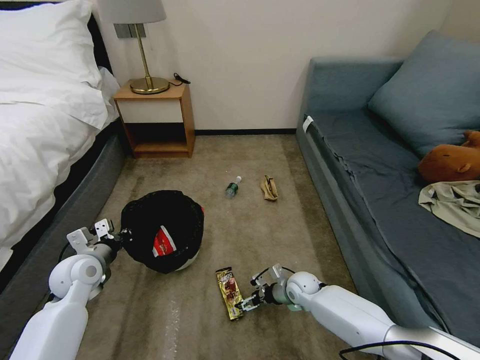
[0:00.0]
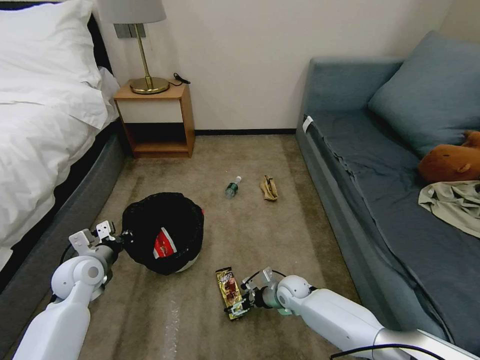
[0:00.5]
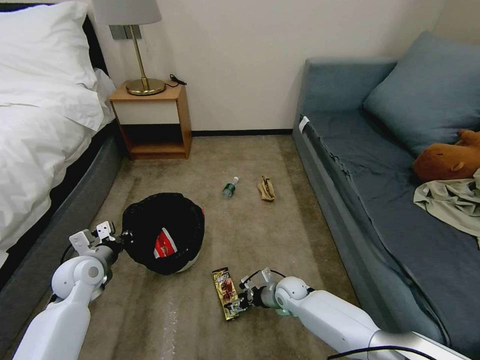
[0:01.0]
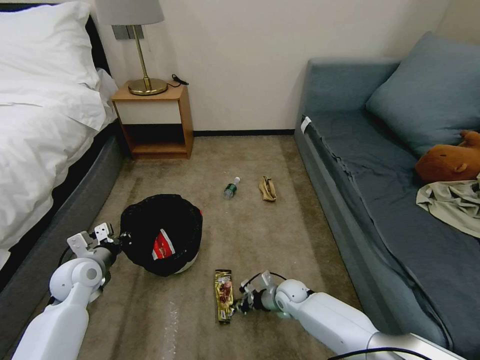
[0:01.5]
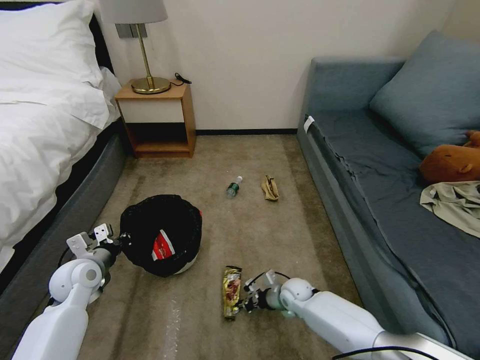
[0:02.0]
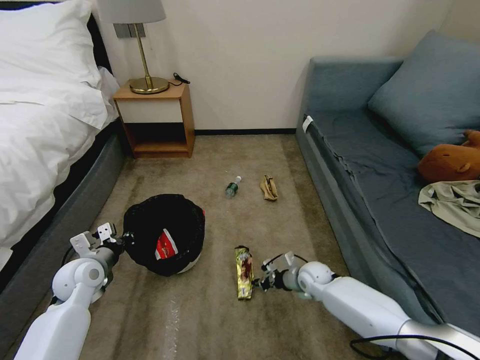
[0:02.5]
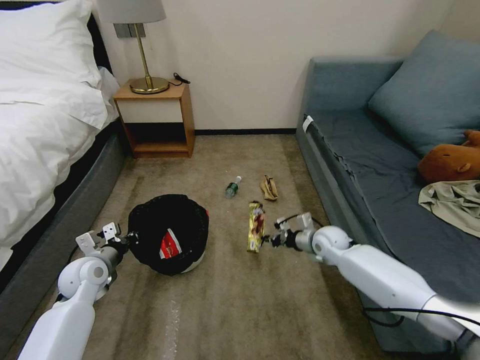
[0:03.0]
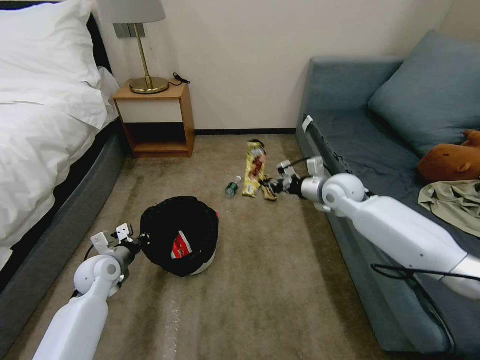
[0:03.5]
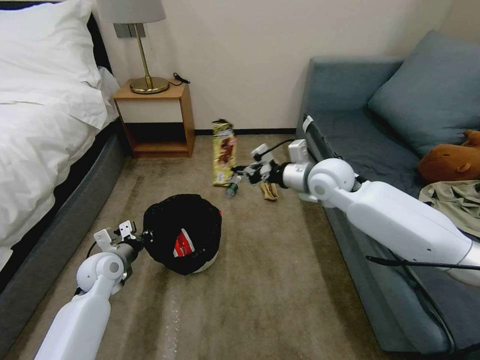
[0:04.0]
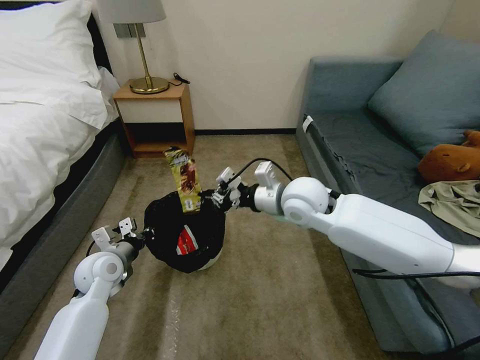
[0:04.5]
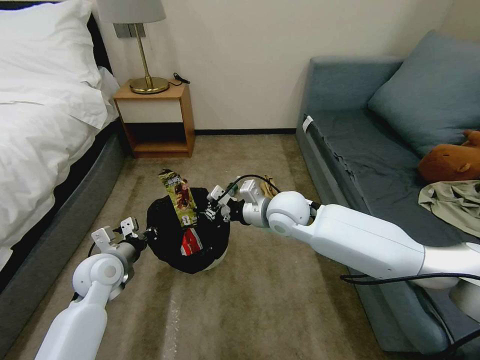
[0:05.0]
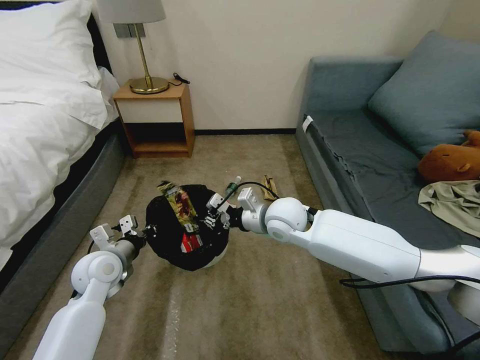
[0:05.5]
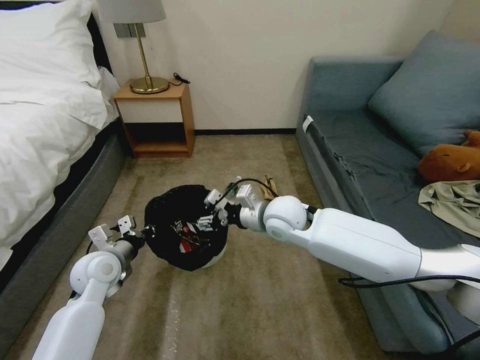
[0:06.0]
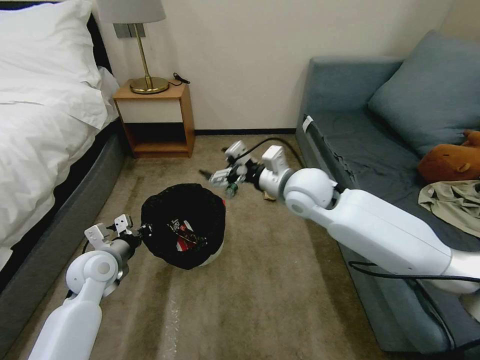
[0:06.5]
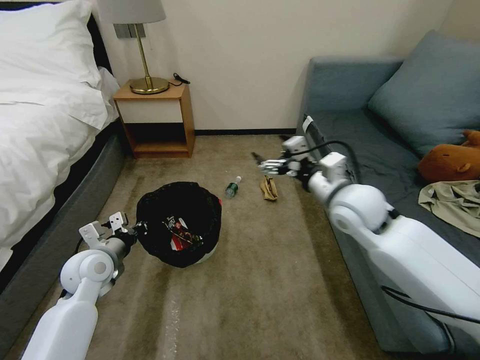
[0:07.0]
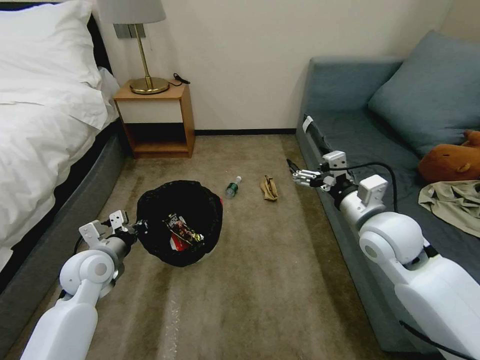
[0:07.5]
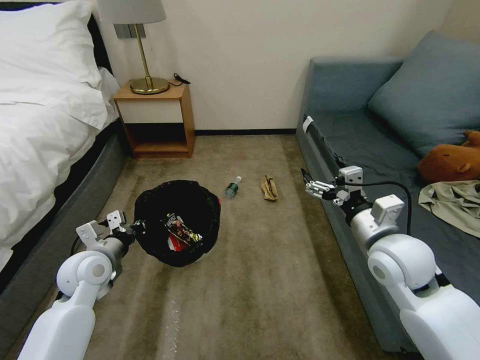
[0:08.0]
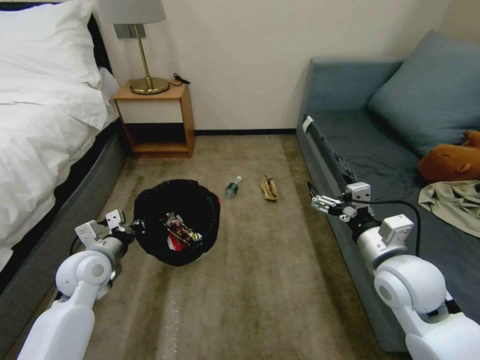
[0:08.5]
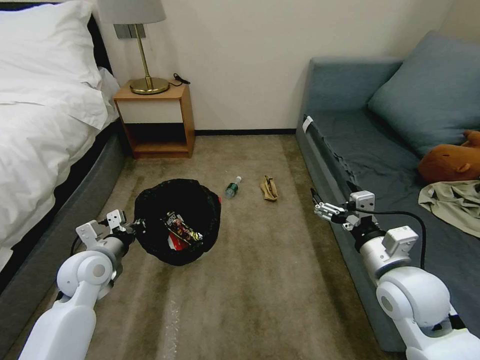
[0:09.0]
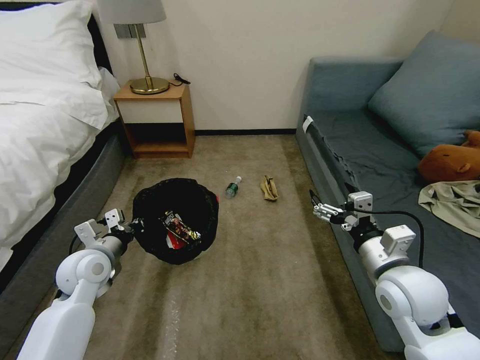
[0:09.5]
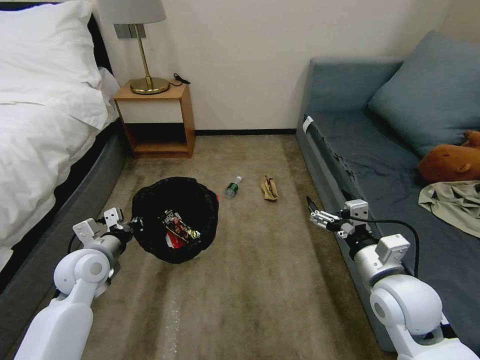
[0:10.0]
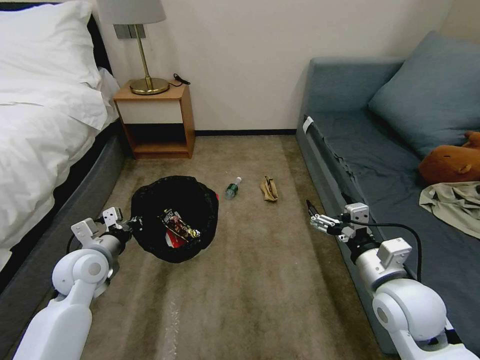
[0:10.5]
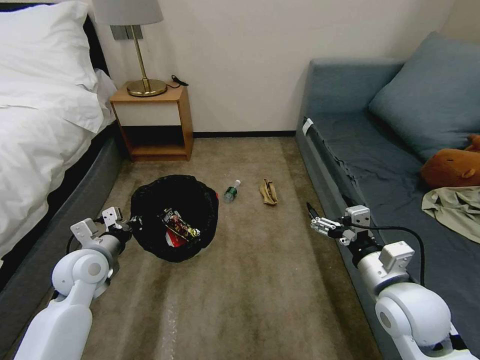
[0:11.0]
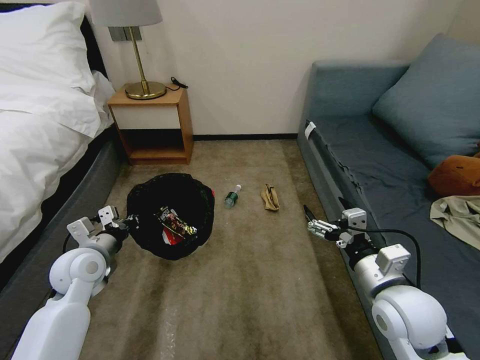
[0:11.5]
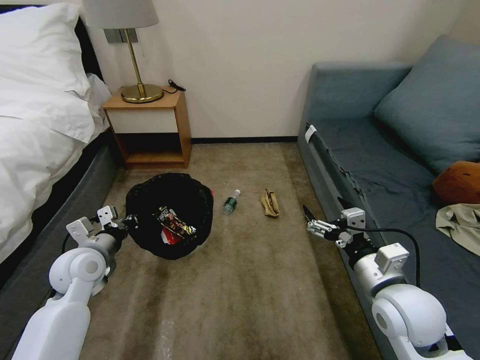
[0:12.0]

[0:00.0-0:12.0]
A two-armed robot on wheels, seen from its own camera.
Task of the whole recording: Pick up the trash bin, then pick up the garbage on the floor and place it into the trash bin.
0:00.0 to 0:02.0: The right gripper closes up.
0:02.0 to 0:04.0: The right gripper travels upward by some 40 cm.
0:04.0 to 0:06.0: The left gripper moves some 5 cm, while the right gripper moves to the left, downward and backward, about 15 cm, and opens.
0:06.0 to 0:08.0: The right gripper shifts some 20 cm to the right and backward, and opens up.
0:08.0 to 0:10.0: The right gripper travels backward by some 5 cm.

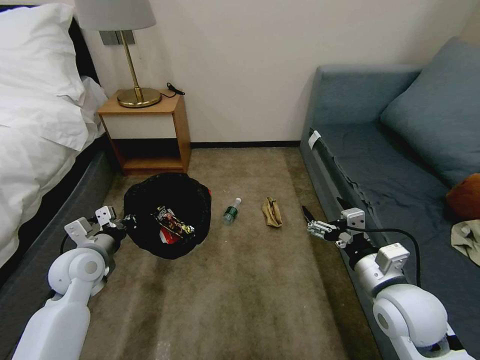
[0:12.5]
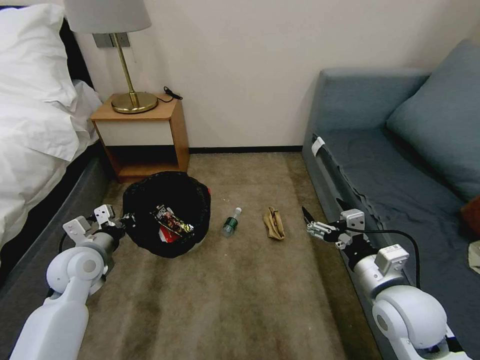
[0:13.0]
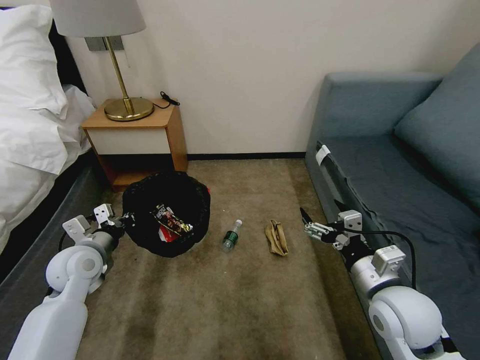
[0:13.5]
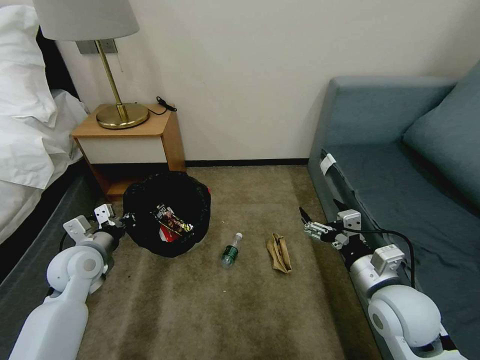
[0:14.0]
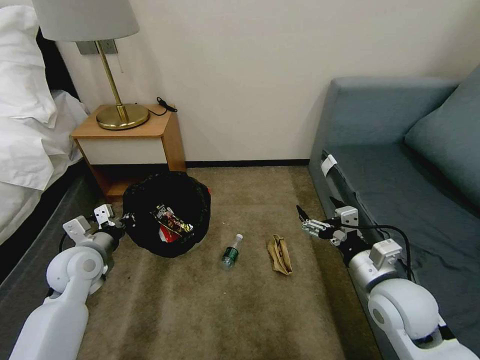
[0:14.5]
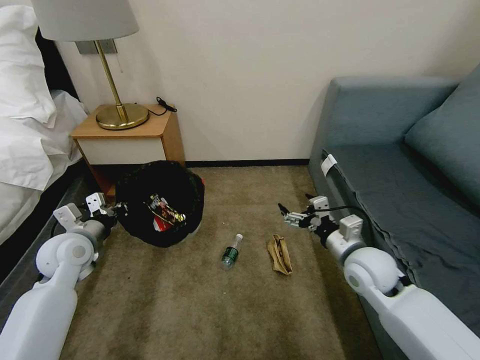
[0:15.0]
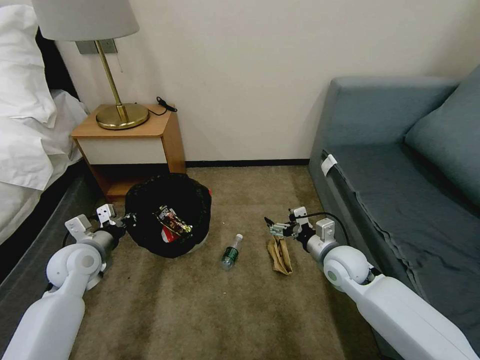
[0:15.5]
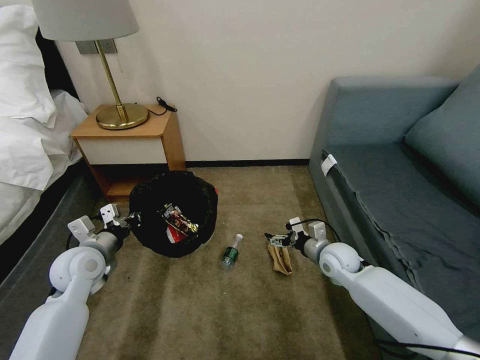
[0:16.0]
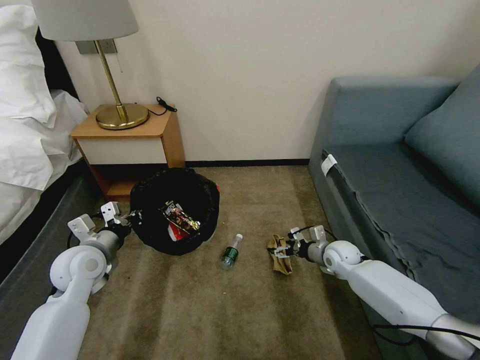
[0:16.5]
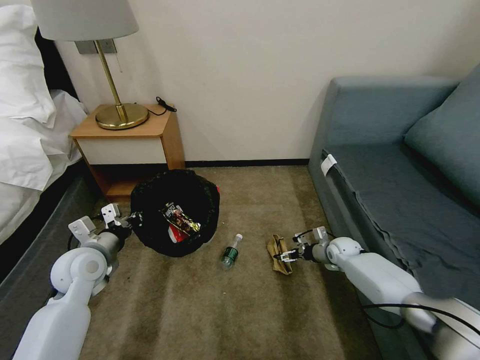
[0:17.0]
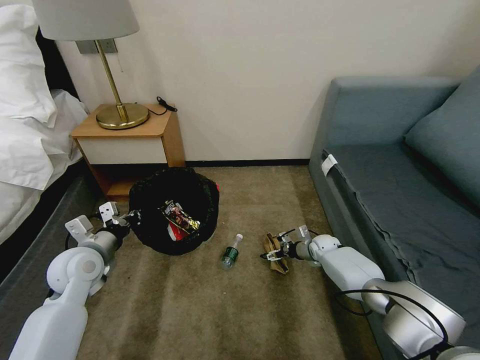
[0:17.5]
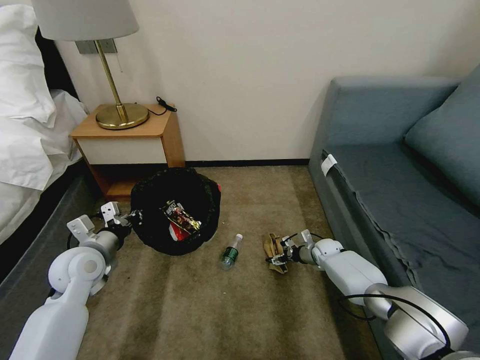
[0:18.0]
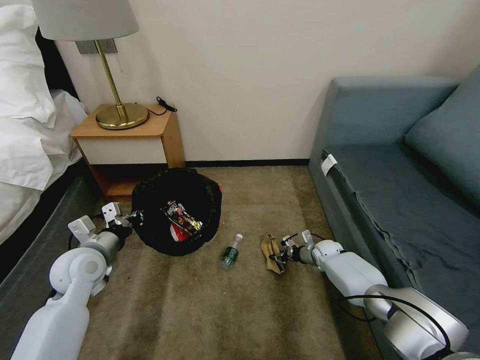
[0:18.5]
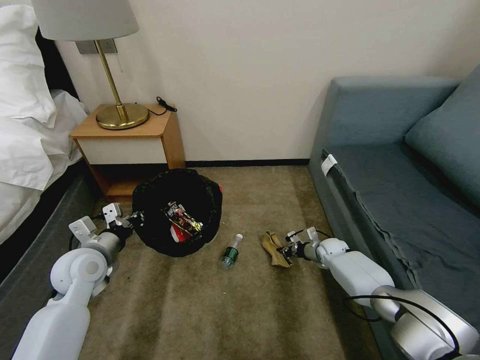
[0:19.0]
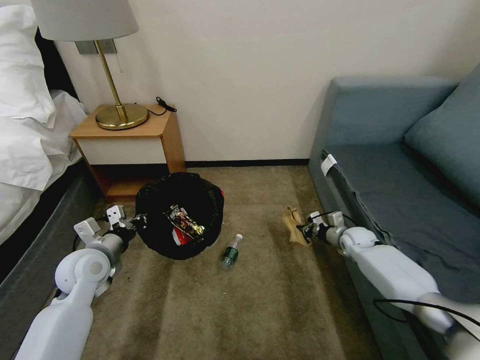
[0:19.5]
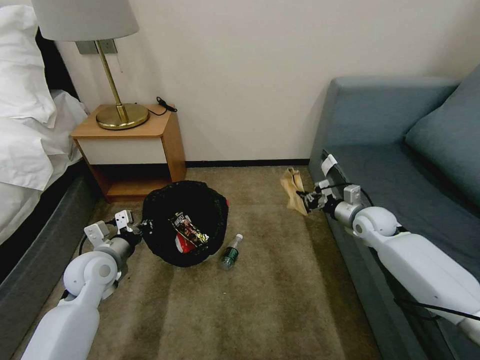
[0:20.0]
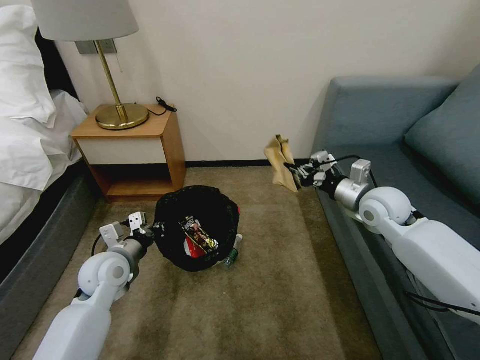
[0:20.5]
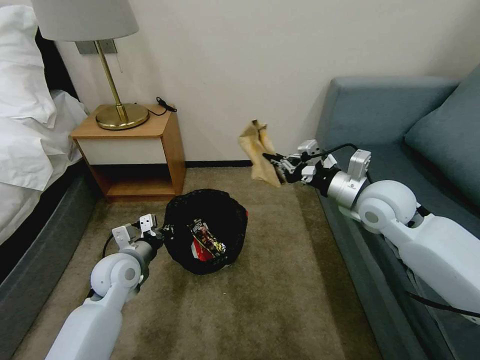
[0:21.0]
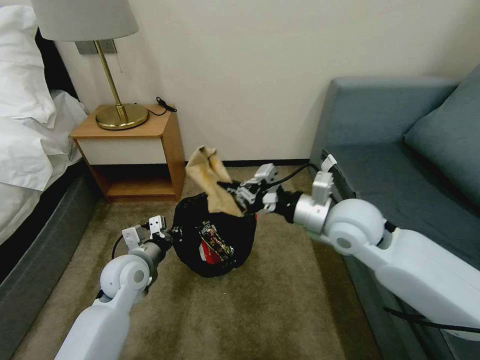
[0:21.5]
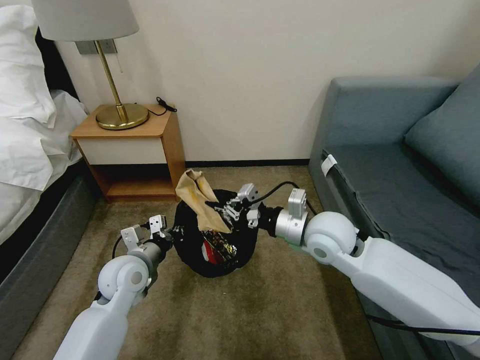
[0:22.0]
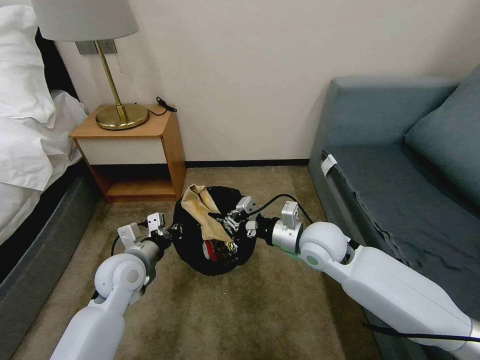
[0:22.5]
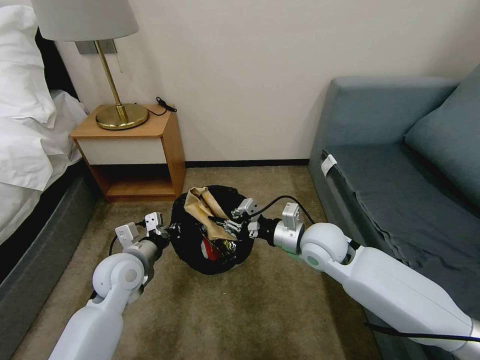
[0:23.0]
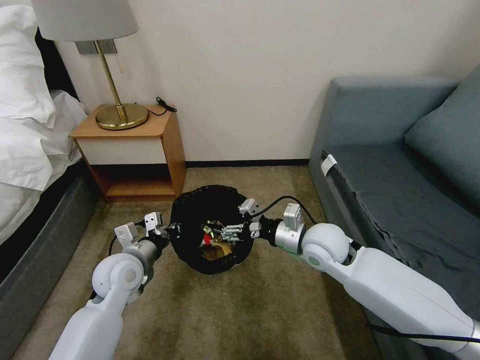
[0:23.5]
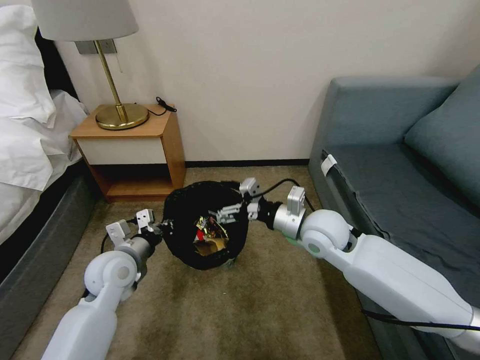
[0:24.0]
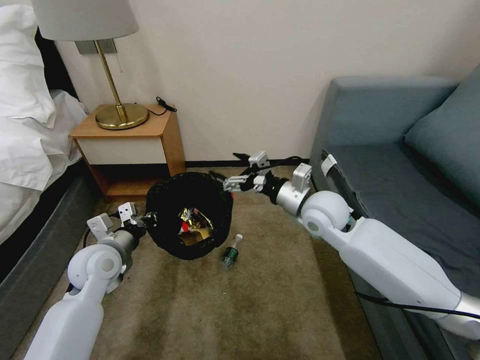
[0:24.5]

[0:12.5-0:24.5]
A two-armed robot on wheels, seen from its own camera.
Task of the whole recording: Pick up the trash bin, then pick up the garbage on the floor and place it into the trash bin.
0:14.5 to 0:16.5: The right gripper is displaced forward and downward by roughly 25 cm.
0:16.5 to 0:18.5: The right gripper is displaced downward and forward by approximately 10 cm, and closes.
0:18.5 to 0:20.5: The right gripper moves upward, approximately 30 cm.
0:20.5 to 0:22.5: The right gripper is displaced to the left and backward by approximately 15 cm.
0:22.5 to 0:24.5: The right gripper moves forward, roughly 5 cm, and opens up, while the left gripper is displaced to the left by about 5 cm.

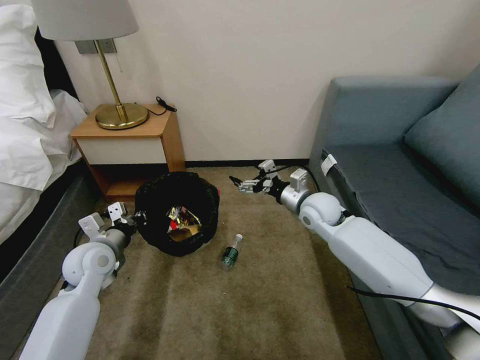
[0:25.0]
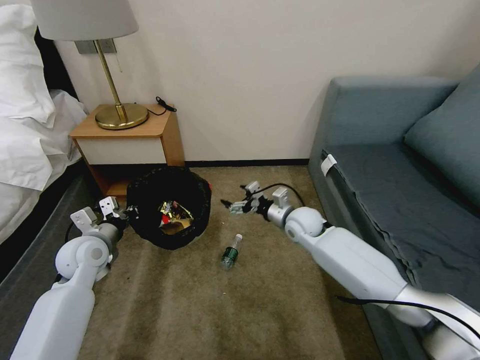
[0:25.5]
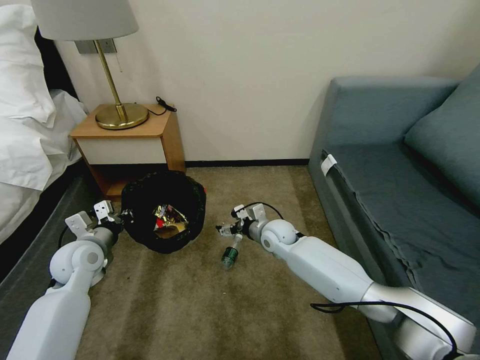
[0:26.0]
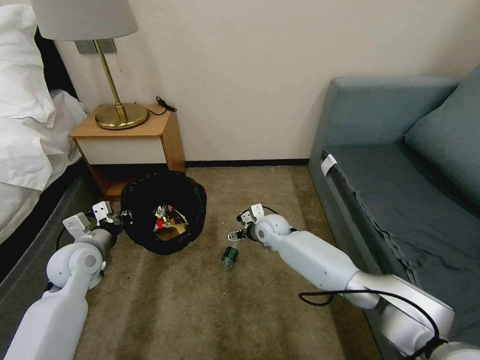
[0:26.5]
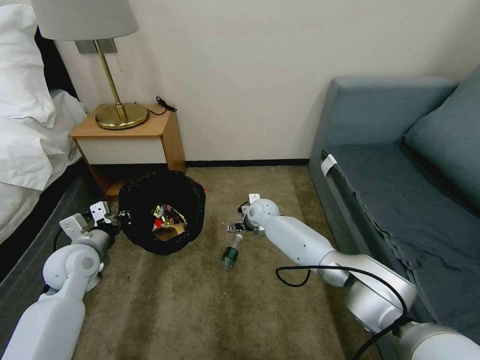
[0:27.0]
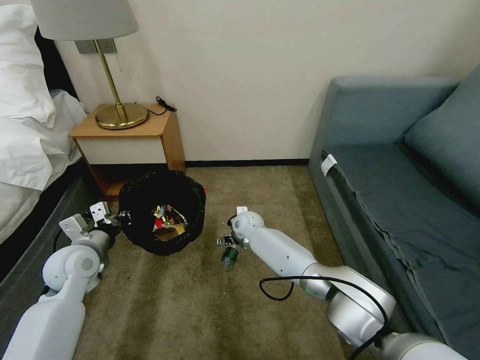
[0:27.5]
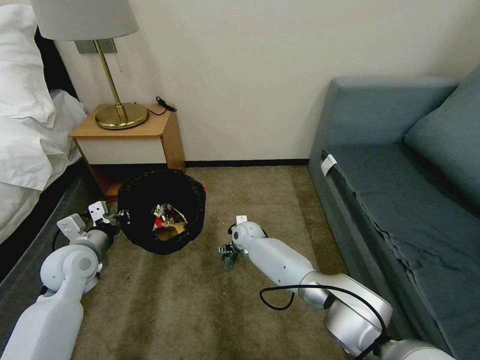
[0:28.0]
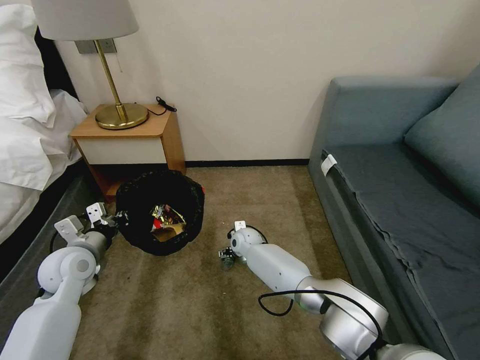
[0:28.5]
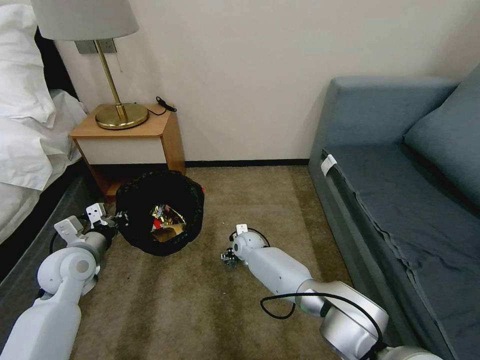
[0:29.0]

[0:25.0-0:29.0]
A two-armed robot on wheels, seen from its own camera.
Task of the whole recording: Pick up the trash bin, then pick up the garbage on the floor and place it into the trash bin.
0:25.0 to 0:27.0: The right gripper shifts some 20 cm to the left, downward and forward.
0:27.0 to 0:29.0: The right gripper is displaced downward and backward by approximately 10 cm.
